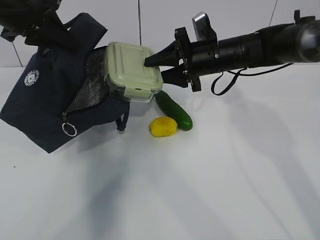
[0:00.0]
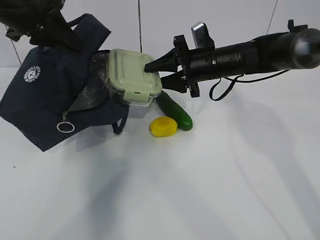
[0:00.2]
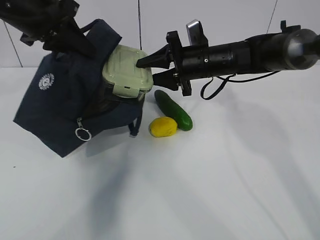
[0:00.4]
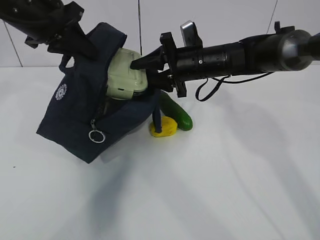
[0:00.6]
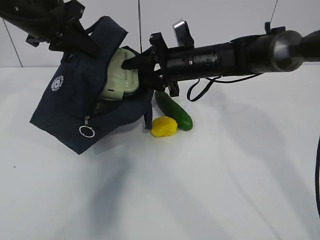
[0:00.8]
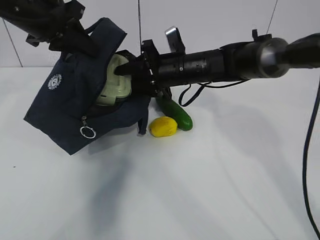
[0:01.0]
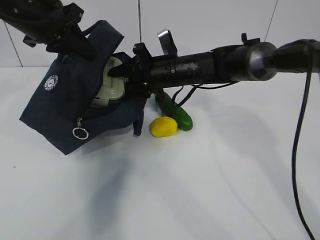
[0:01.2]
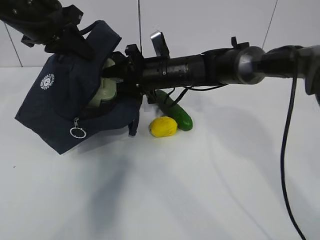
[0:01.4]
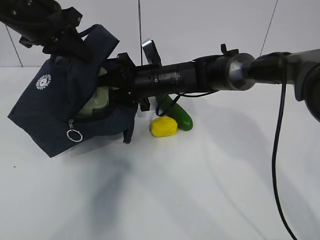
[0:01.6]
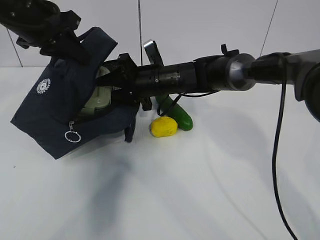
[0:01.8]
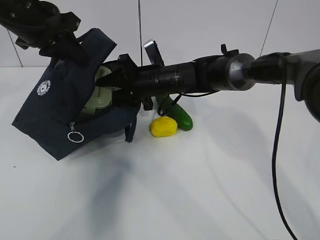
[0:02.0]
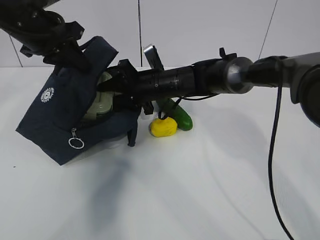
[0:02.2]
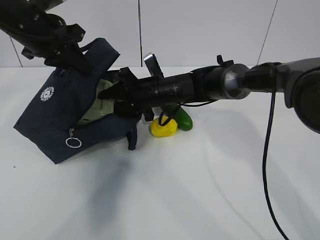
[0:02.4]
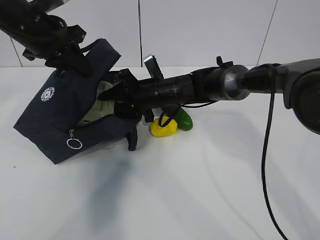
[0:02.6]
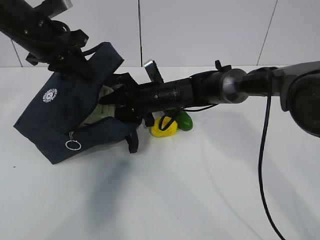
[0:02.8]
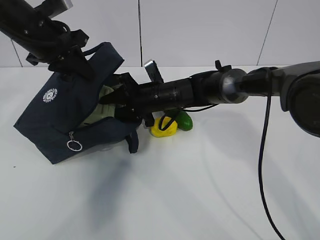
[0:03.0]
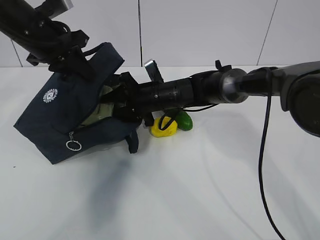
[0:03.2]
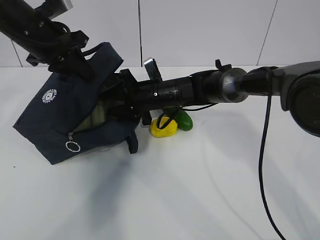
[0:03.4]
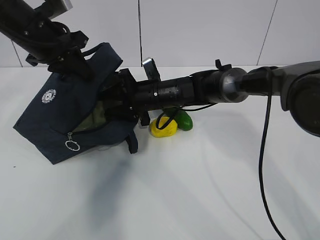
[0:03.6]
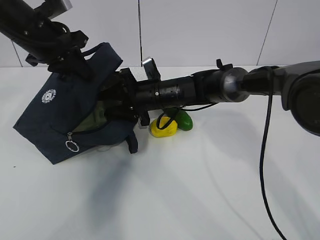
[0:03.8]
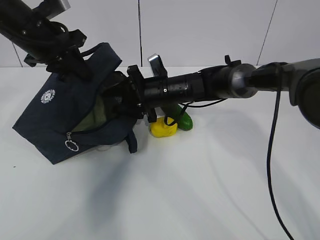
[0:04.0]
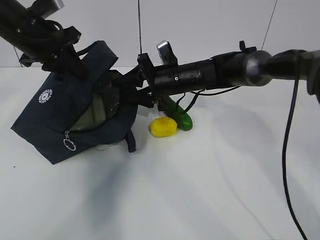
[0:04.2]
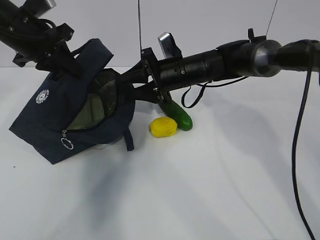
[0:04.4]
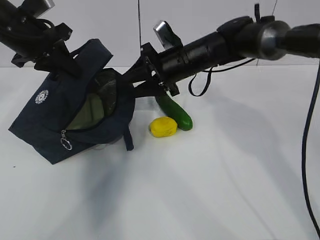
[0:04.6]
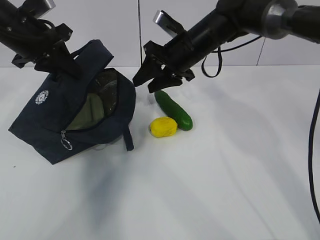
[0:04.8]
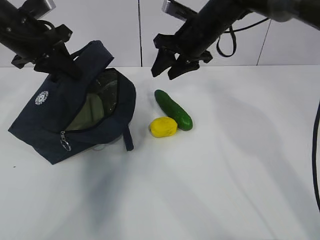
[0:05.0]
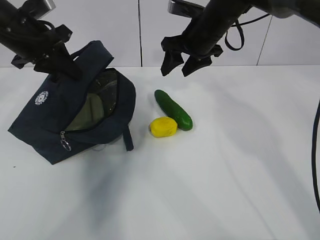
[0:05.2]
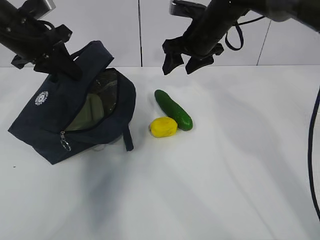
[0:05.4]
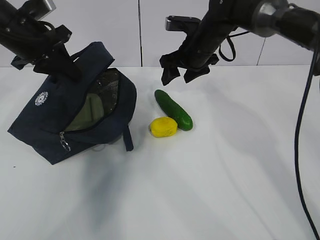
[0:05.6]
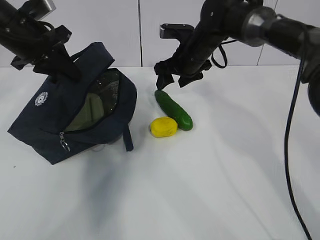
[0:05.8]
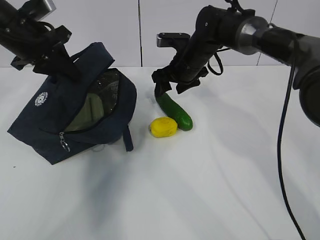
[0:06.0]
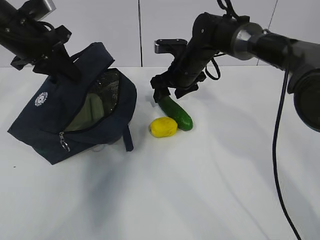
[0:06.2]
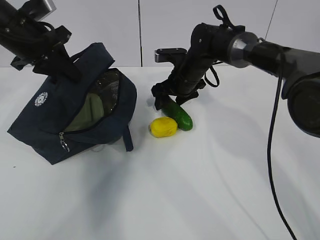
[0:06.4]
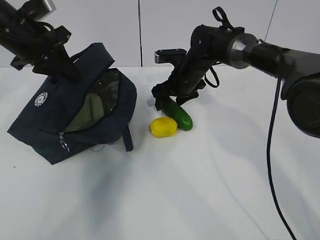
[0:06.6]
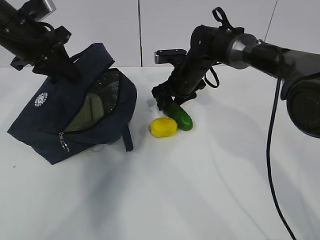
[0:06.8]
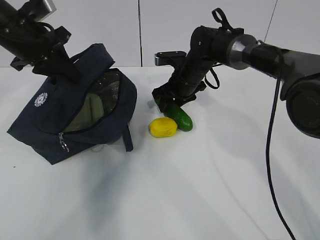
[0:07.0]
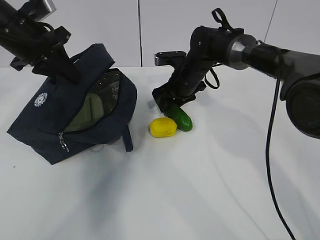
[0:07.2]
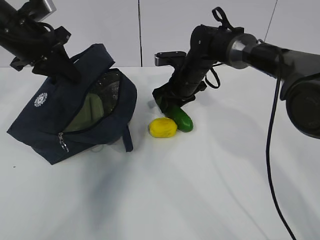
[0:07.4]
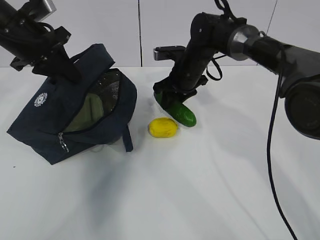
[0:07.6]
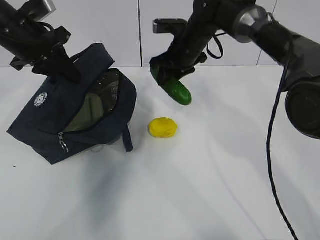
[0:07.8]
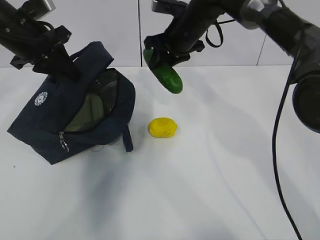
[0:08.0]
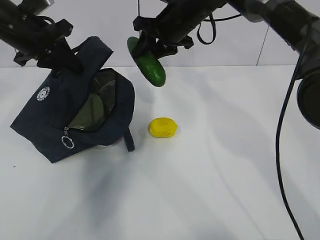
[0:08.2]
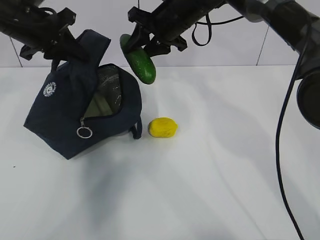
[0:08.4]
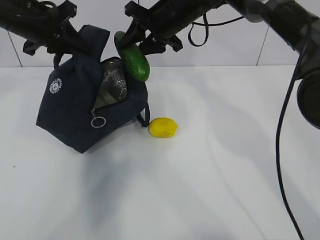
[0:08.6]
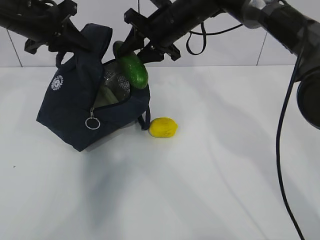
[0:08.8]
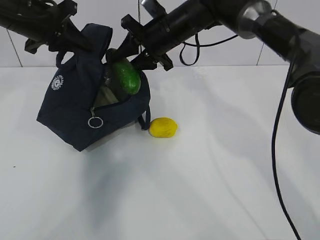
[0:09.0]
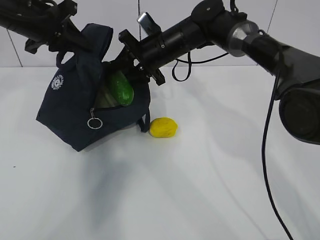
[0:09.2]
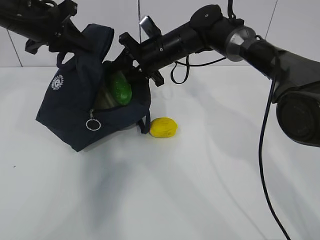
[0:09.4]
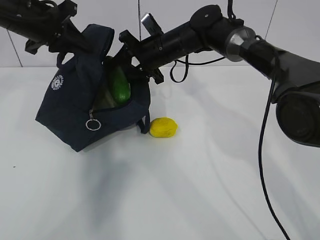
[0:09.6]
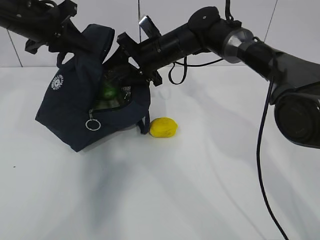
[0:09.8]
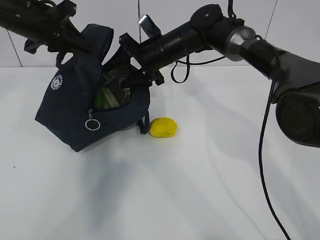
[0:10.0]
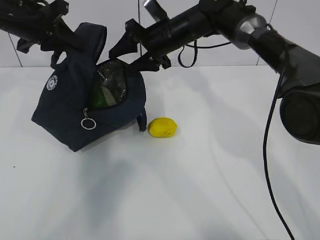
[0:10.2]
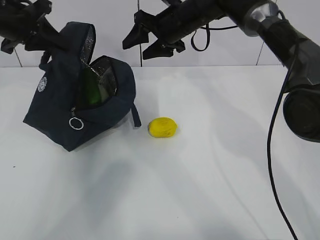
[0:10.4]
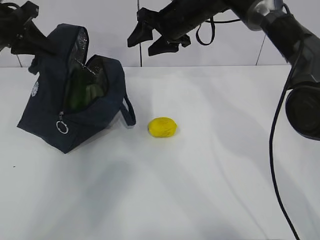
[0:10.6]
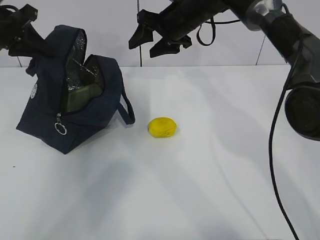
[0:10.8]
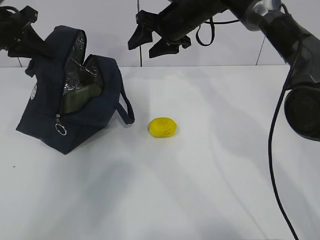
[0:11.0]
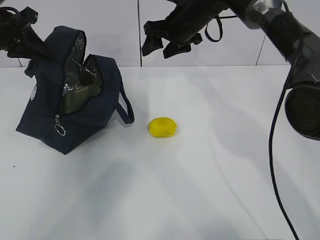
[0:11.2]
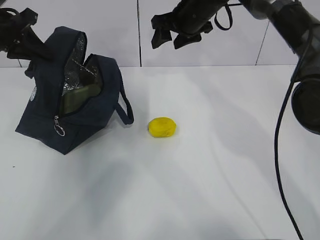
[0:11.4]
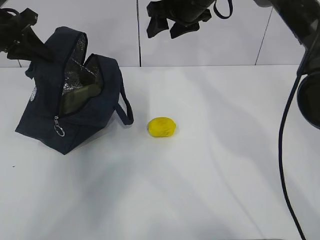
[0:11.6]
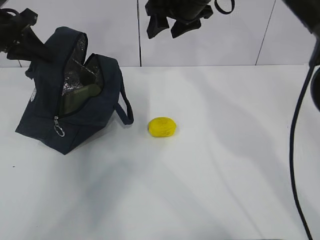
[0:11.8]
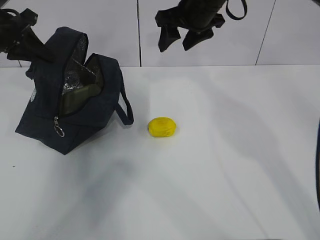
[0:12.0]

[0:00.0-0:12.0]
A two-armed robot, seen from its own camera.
Step, 0:00.0 to 0:01.8: Grab the cucumber with your right hand.
Step, 0:02.2 to 0:05.2: Place it into the bag with your right hand.
Step, 0:05.4 to 0:10.8: Grab the lemon with your right hand.
0:00.0 to 0:01.6: The right gripper travels to the left and downward by about 10 cm.
0:01.6 to 0:03.0: The grippers move only a little.
0:03.0 to 0:04.4: The right gripper goes about 5 cm upward.
0:04.4 to 0:06.0: The right gripper goes upward and returns, about 10 cm each way.
0:06.0 to 0:07.6: The right gripper closes its fingers.
0:07.6 to 0:09.0: The right gripper heads upward, covering about 10 cm.
0:09.0 to 0:10.4: The right gripper opens.
0:10.4 to 0:12.0: The right gripper heads upward, covering some 5 cm.

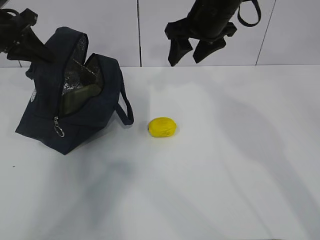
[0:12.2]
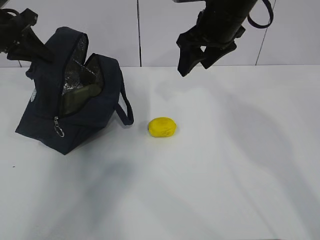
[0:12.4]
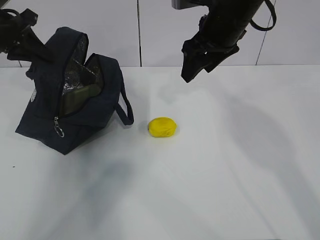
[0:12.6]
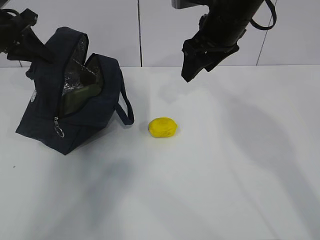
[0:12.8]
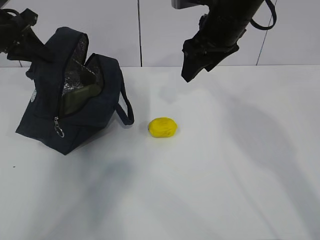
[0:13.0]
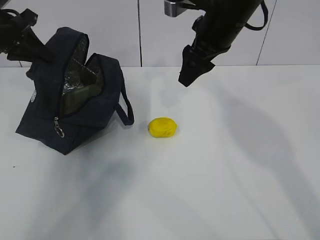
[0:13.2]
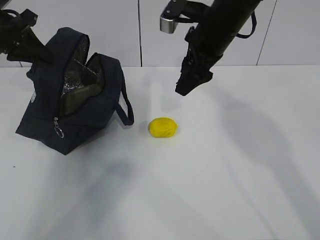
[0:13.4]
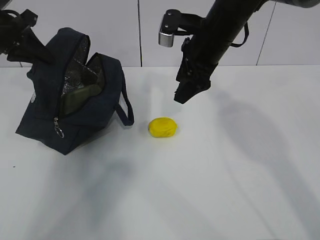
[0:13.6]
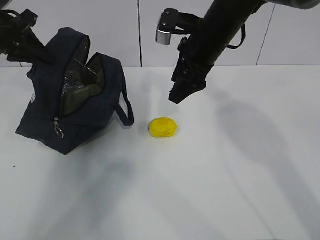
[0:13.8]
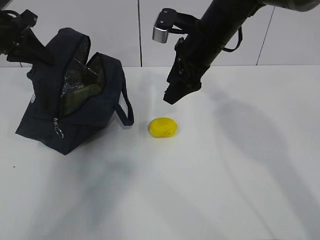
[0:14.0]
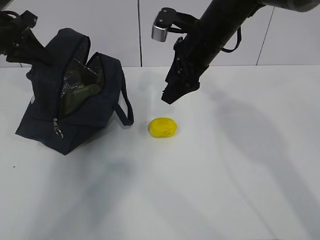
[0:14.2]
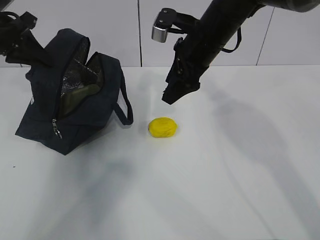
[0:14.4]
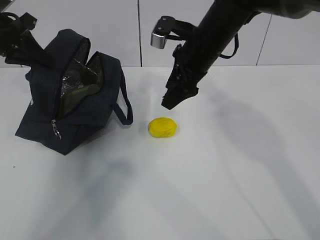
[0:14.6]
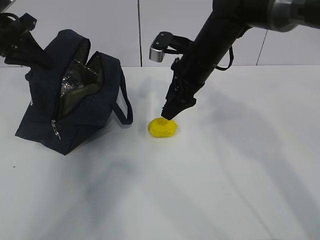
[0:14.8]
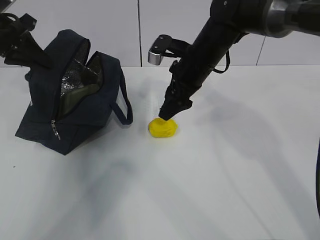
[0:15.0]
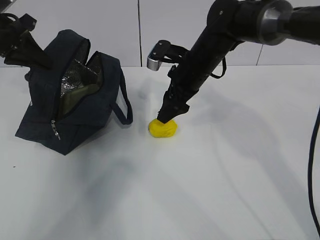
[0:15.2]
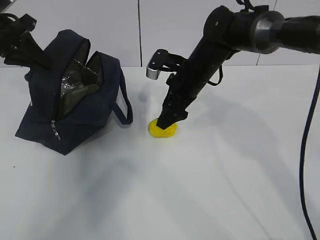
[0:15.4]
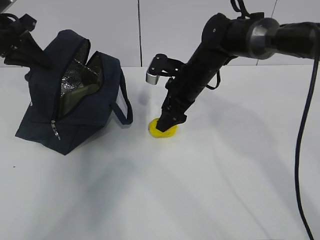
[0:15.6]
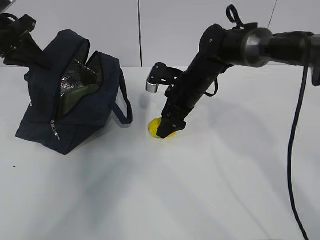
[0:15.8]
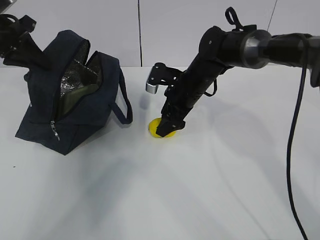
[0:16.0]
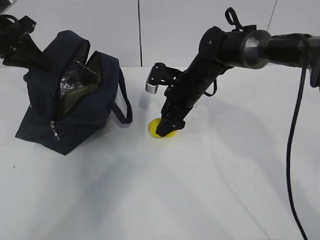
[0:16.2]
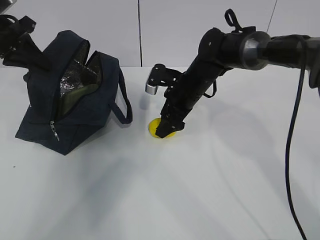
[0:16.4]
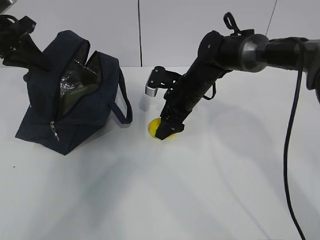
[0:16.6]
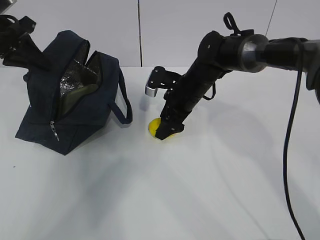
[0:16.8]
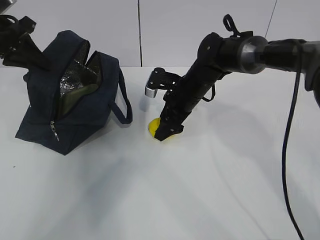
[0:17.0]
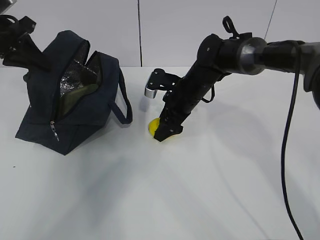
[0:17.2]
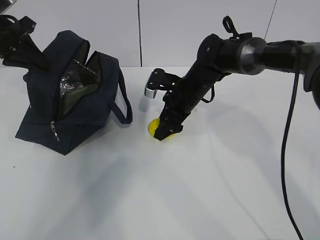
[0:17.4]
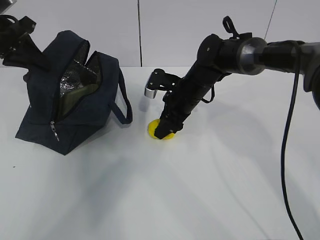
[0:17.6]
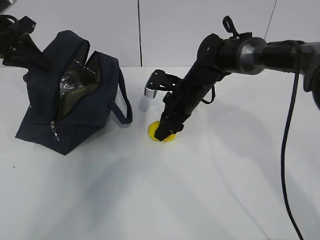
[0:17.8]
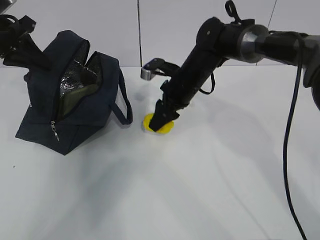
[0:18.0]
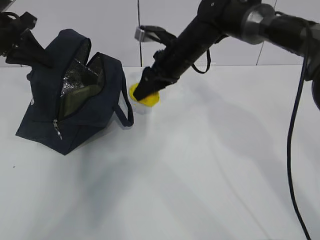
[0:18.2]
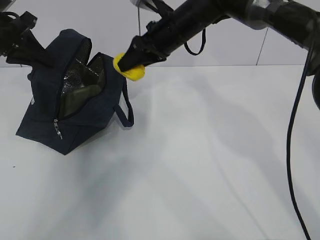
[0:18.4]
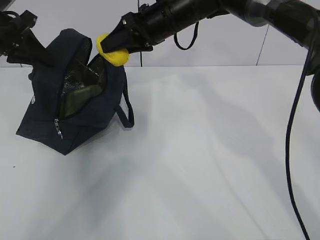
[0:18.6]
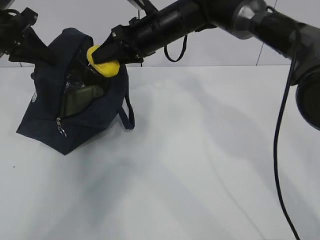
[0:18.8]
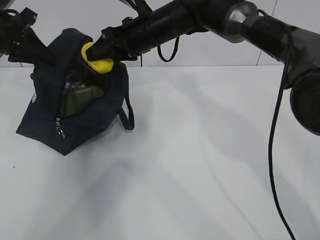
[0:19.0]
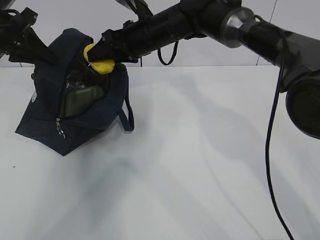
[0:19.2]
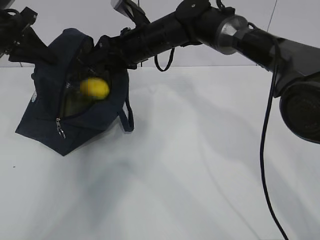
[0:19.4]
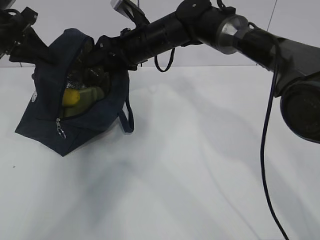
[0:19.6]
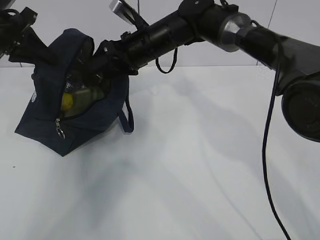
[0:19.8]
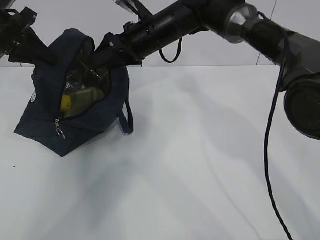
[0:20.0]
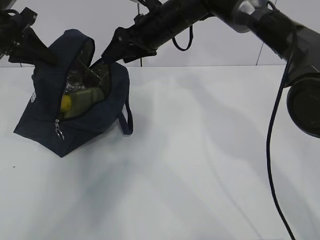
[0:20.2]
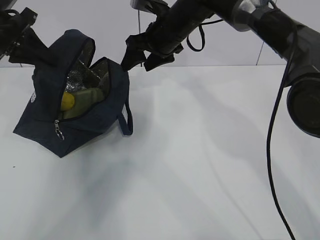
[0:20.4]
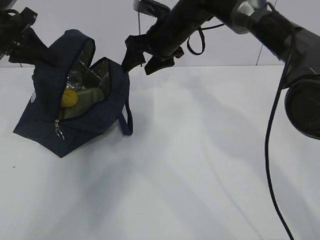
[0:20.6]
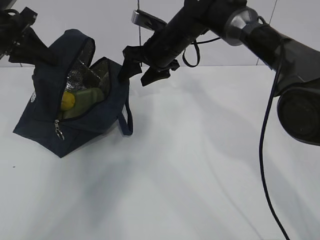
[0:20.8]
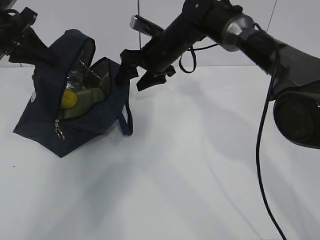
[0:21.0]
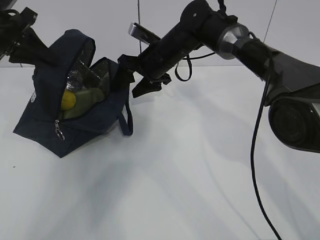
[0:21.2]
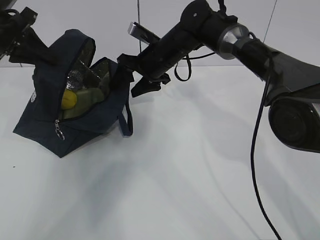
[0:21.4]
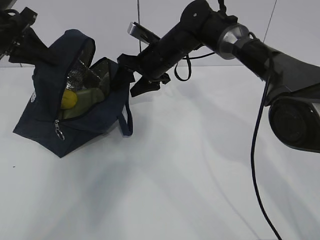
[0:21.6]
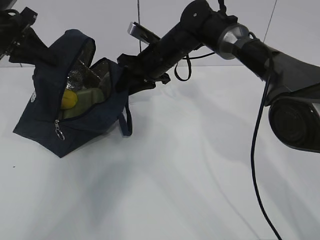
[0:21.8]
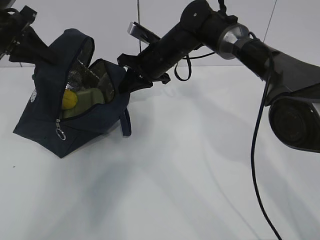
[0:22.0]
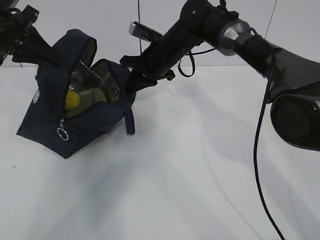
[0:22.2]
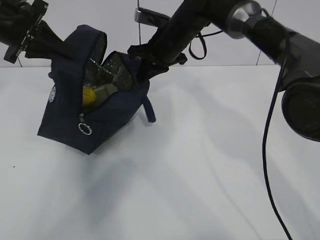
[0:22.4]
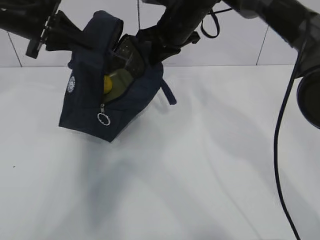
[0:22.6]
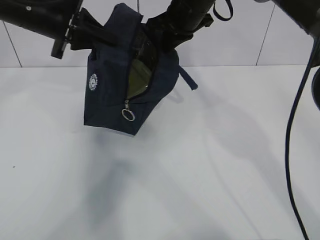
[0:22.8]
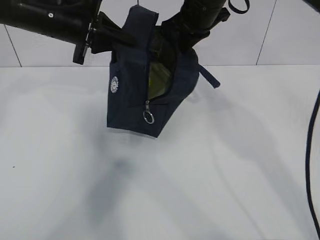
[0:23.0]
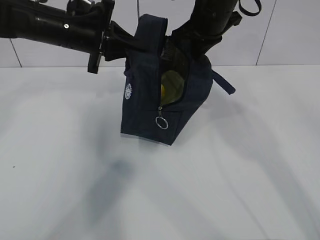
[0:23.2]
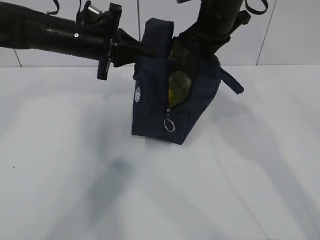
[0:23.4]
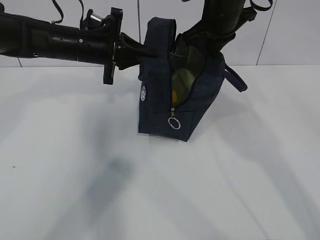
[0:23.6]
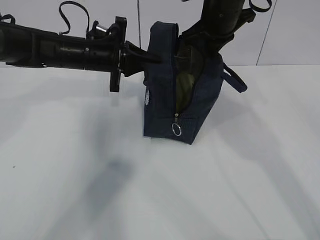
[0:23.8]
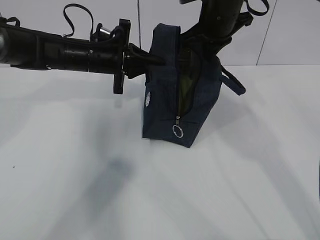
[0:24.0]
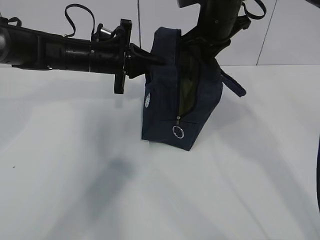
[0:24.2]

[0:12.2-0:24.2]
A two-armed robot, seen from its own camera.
Step, 0:12.6 to 0:14.2: Grab the lunch bag with your right hand.
Step, 0:14.4 to 0:17.0: Move the lunch bag to the right.
0:13.8 to 0:15.2: The right gripper heads downward, covering roughly 5 cm.
0:15.2 to 0:16.6: The right gripper goes roughly 5 cm downward.
0:16.6 to 0:18.2: The right gripper goes roughly 10 cm upward, and closes its fingers.
0:18.2 to 0:19.8: The right gripper travels to the left by some 5 cm, and opens up.
0:19.8 to 0:21.2: The right gripper changes place by about 5 cm.
0:21.2 to 0:22.6: The right gripper travels upward by approximately 5 cm, and closes its fingers; the left gripper goes approximately 5 cm to the right.
0:22.6 to 0:24.2: The left gripper heads to the right and downward, covering approximately 15 cm; the right gripper heads to the right, covering approximately 5 cm.
